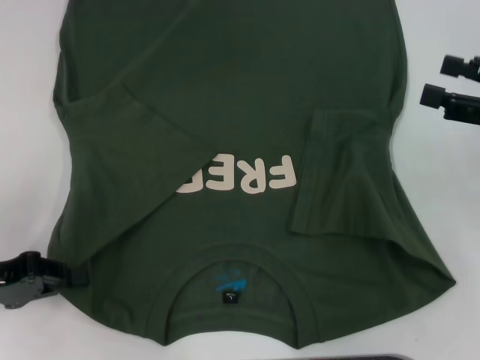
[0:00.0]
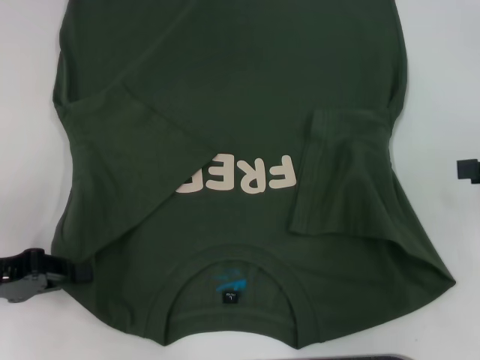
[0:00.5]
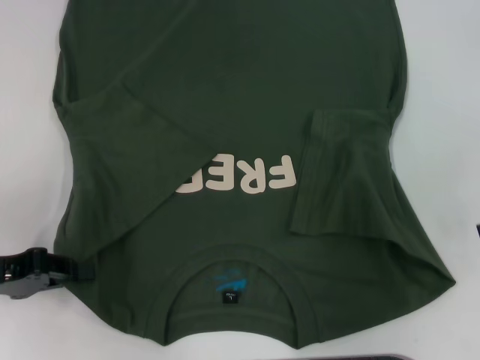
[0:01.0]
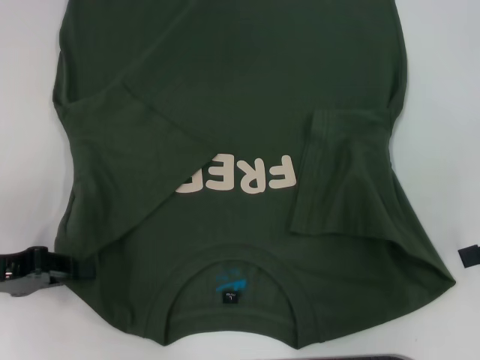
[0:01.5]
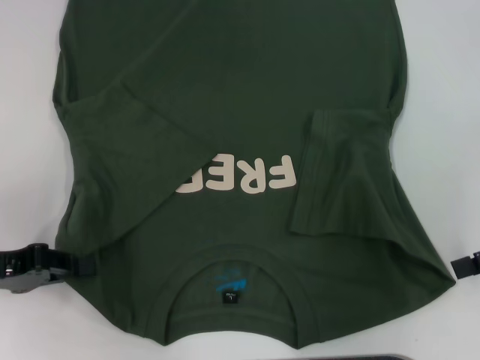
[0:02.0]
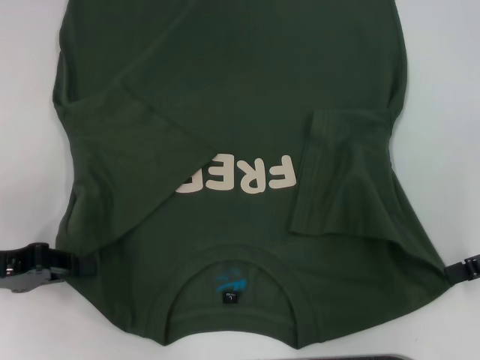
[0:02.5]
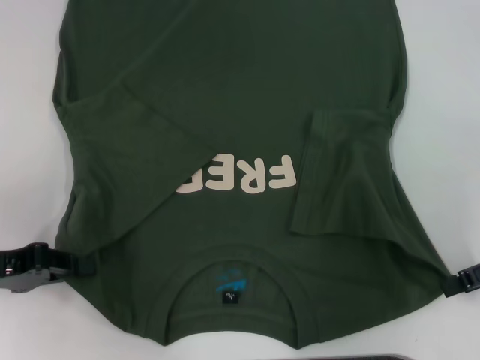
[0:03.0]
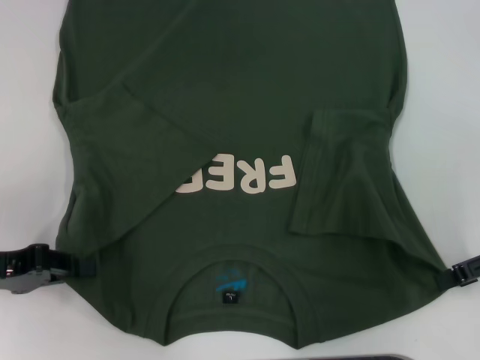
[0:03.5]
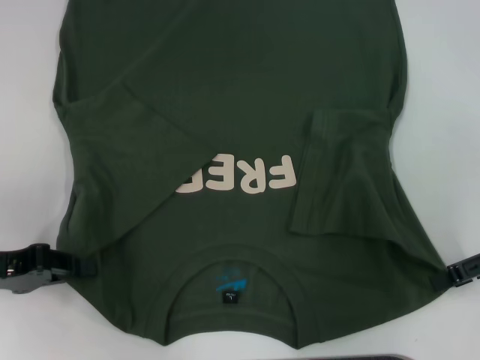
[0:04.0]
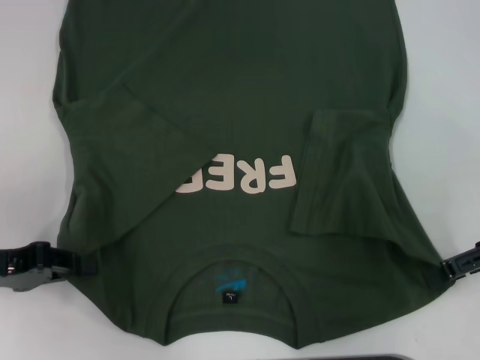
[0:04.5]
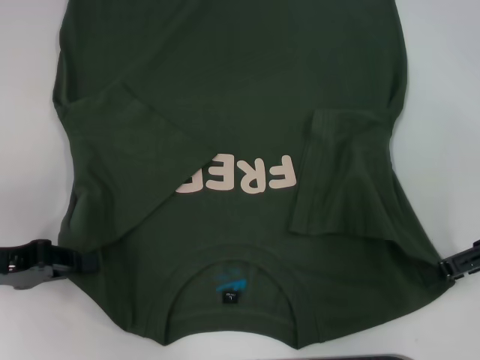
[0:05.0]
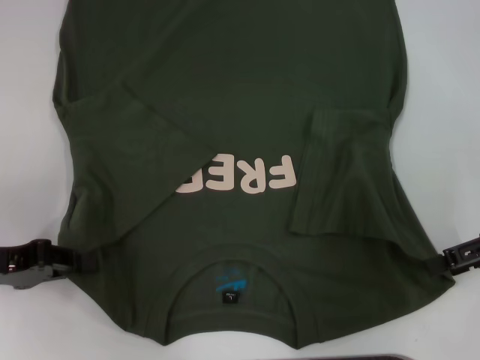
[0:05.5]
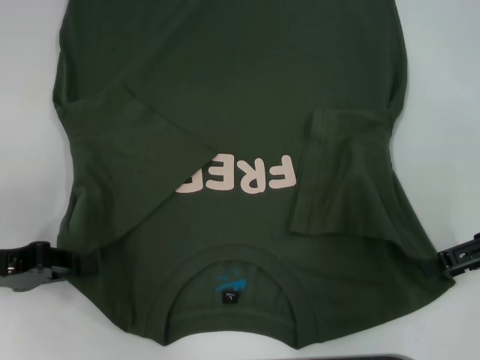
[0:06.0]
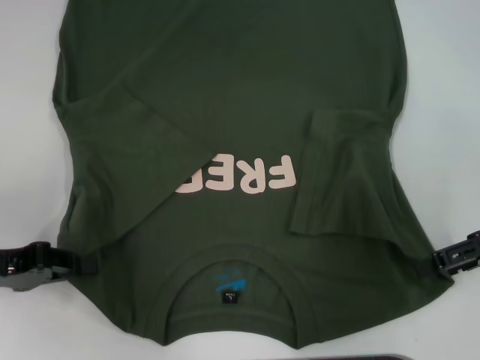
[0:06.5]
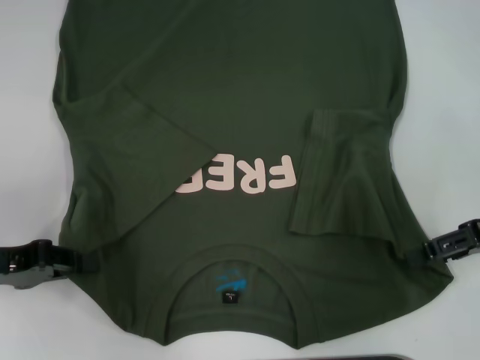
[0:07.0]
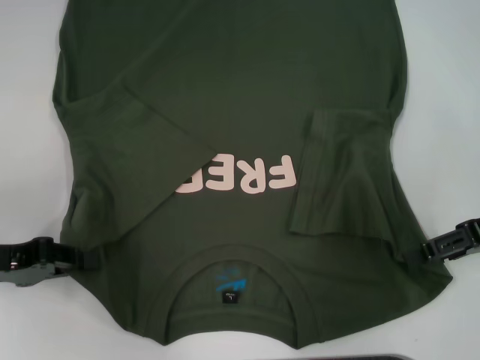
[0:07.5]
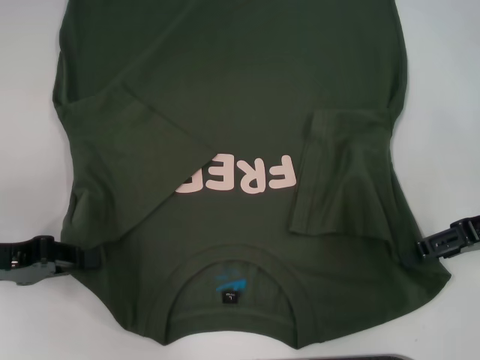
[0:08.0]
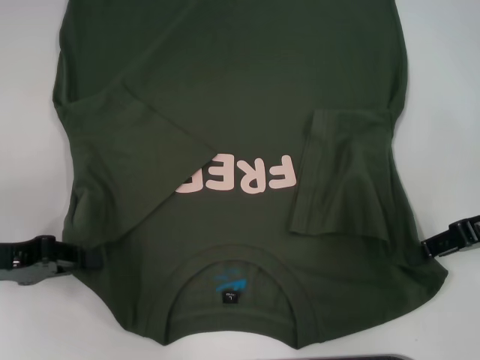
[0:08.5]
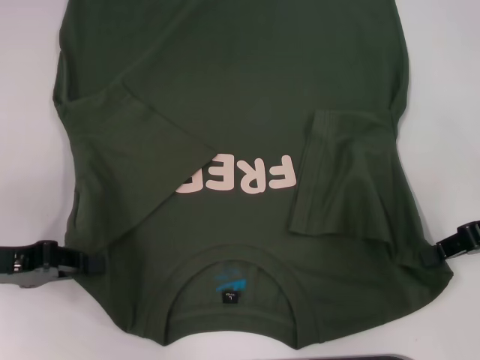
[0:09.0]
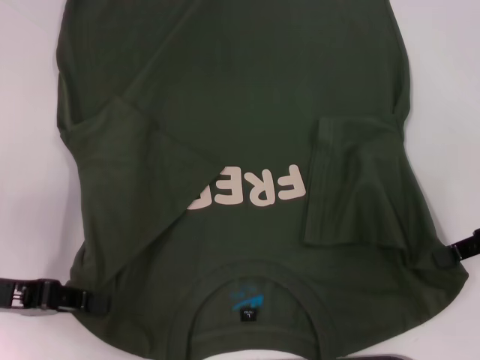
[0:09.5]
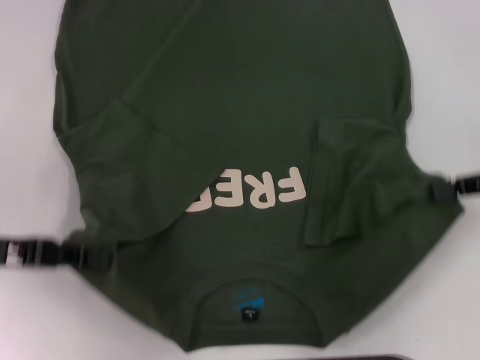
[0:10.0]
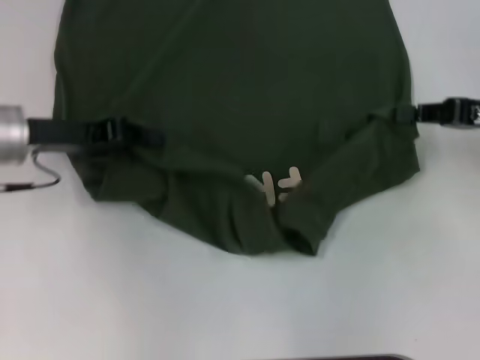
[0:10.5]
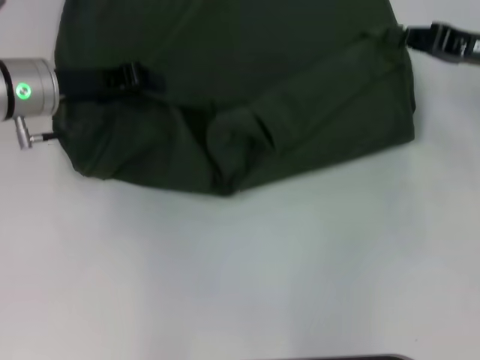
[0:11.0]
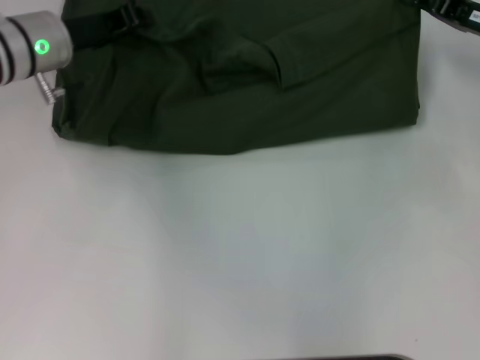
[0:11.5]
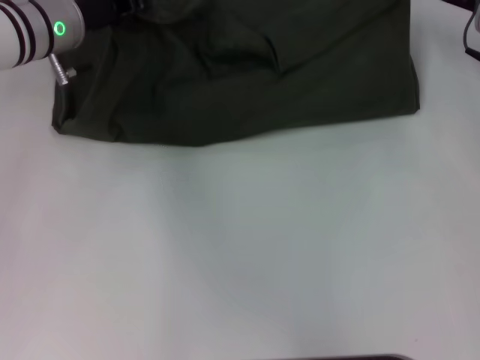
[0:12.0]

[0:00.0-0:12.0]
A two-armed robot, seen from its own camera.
Step, 0:00.5 to 0:09.0: Grab the bottom right corner with your right hand.
0:04.0 to 0:06.0: Both grippers stay about where they are.
0:06.0 to 0:08.0: The grippers move only a little.
0:08.0 to 0:10.0: The right gripper closes up.
0:10.0 to 0:12.0: The left gripper shifts about 20 cm forward and to the right, while the right gripper goes roughly 15 cm forward and to the left.

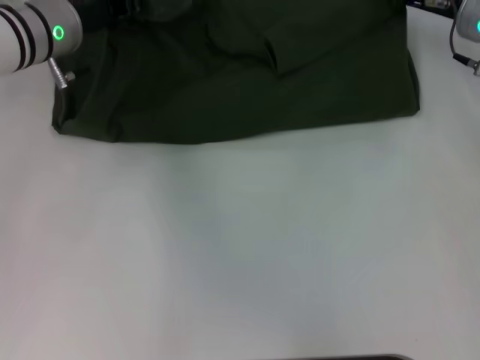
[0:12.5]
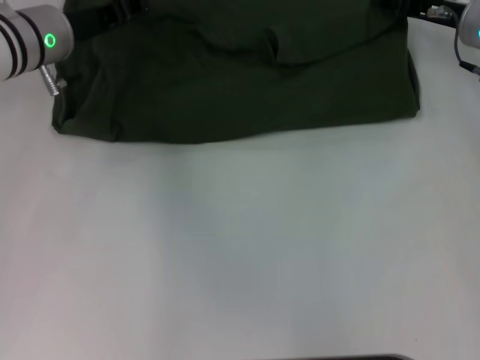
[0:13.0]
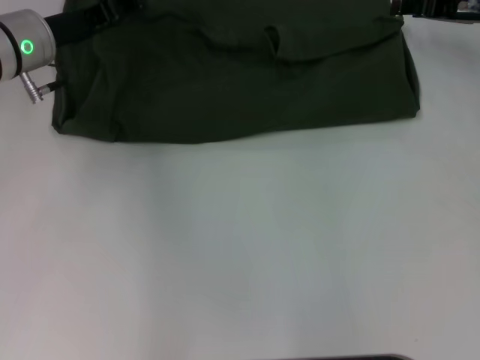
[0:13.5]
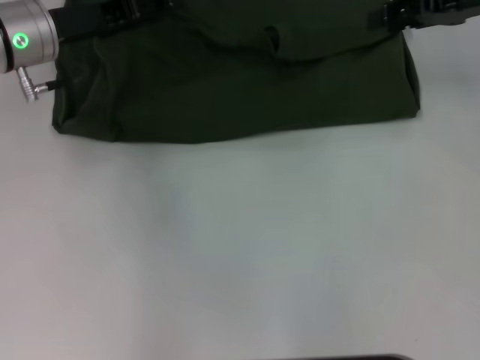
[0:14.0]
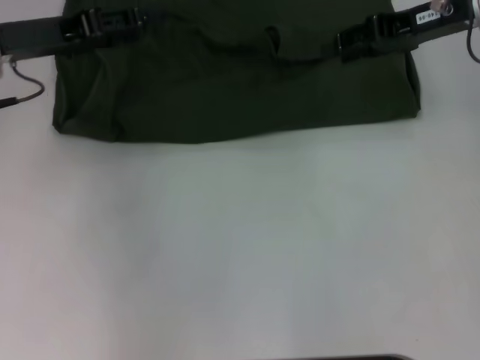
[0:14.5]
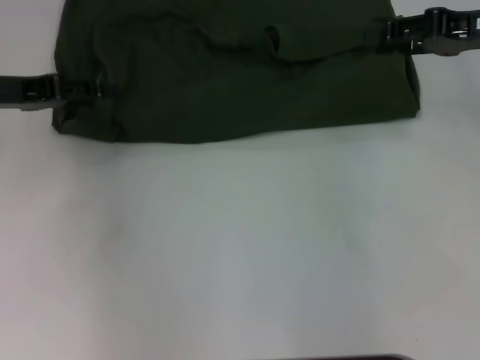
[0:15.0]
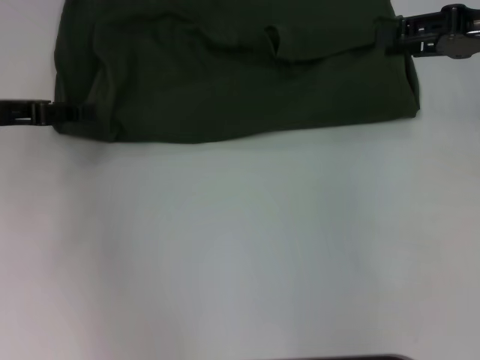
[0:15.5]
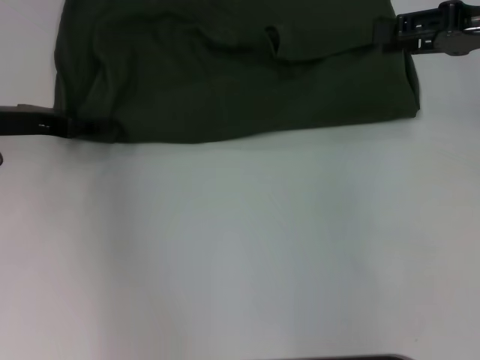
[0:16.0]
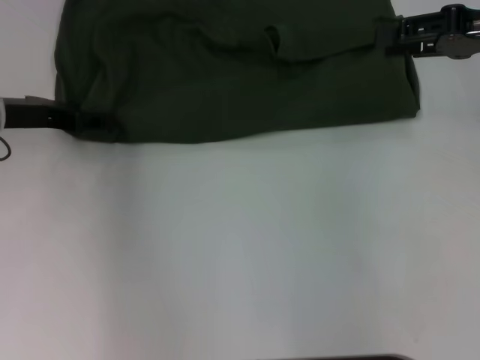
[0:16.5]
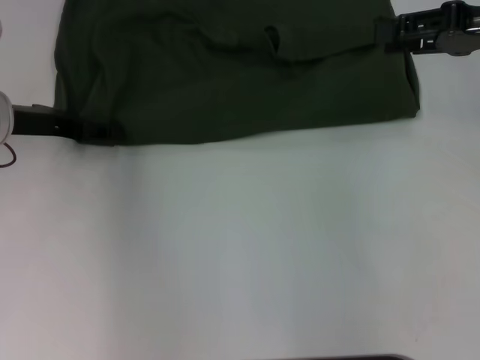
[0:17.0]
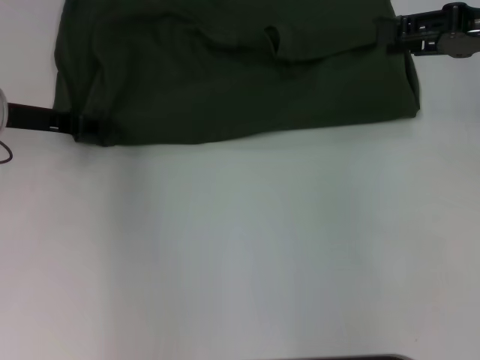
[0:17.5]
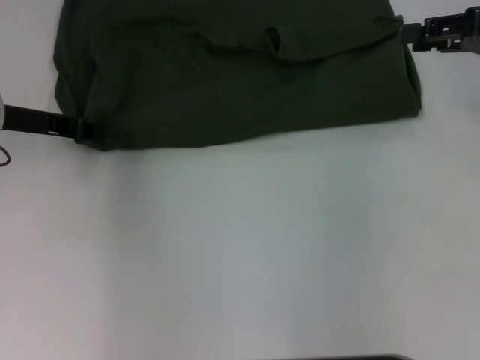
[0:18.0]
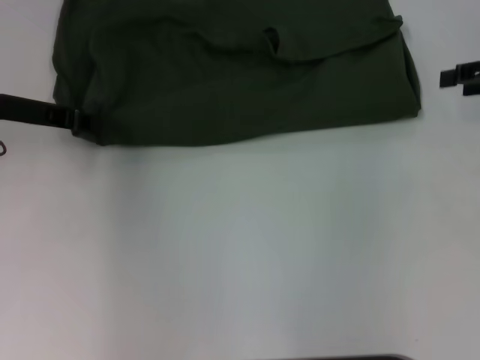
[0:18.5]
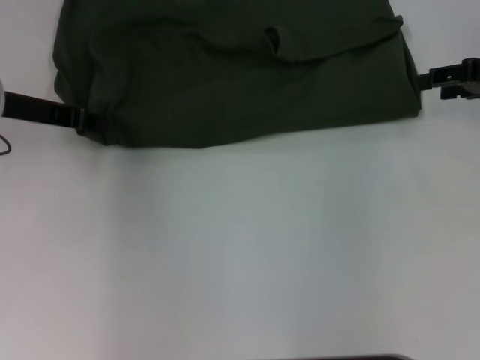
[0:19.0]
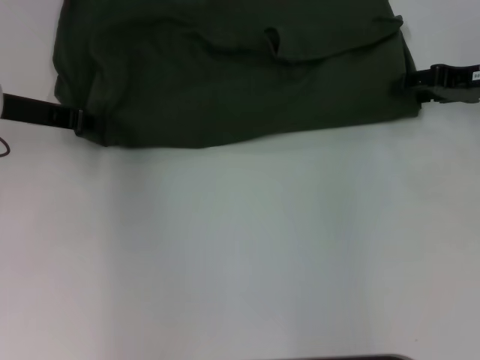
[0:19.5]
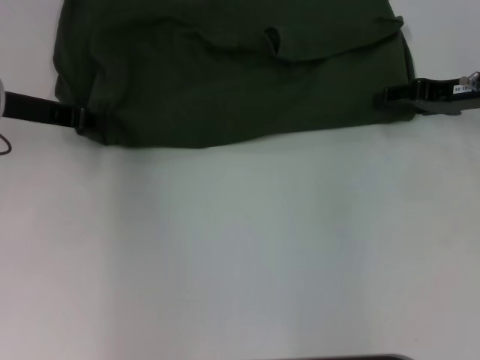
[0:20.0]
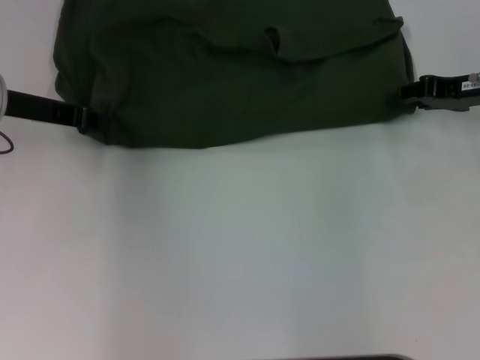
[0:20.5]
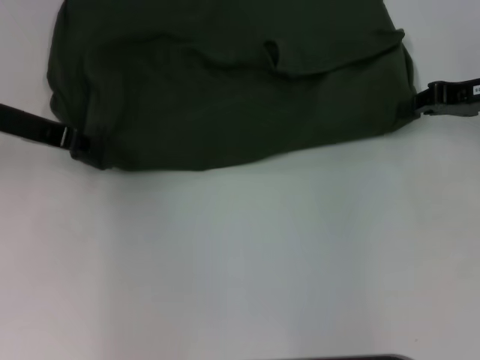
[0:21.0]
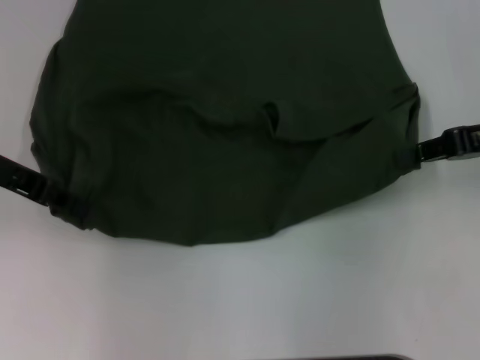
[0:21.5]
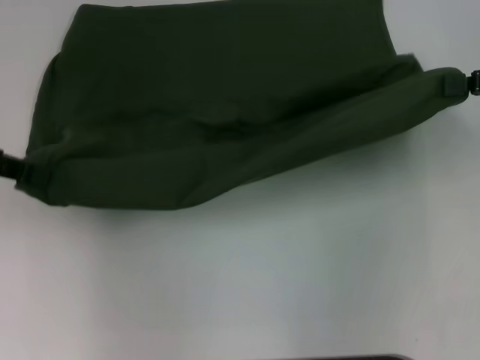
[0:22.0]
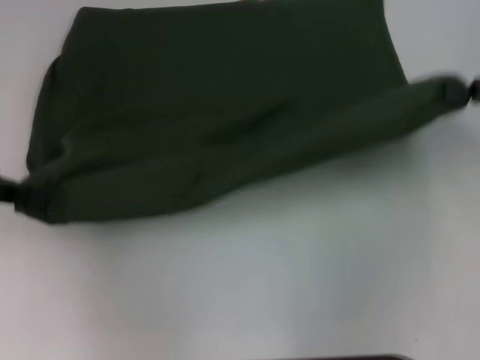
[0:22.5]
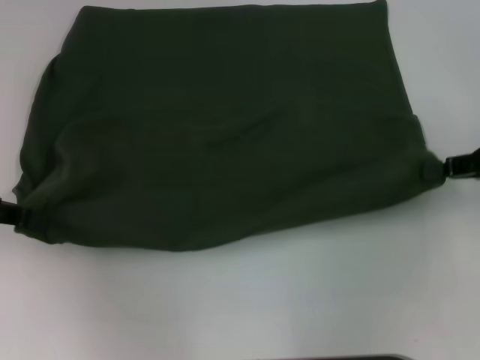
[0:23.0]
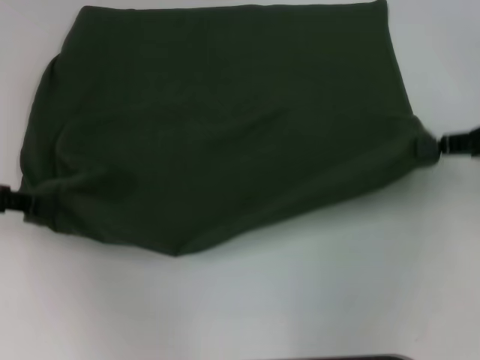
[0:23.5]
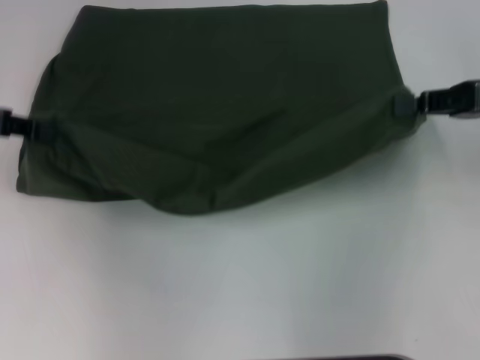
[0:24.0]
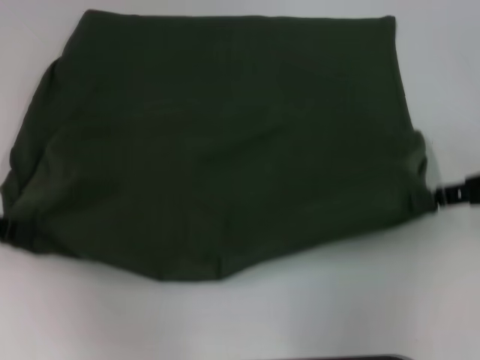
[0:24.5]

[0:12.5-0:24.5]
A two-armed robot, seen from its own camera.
Step, 0:13.5 to 0:22.5: Pull the clothes with your left hand.
Step, 0:13.5 to 0:22.5: Pull the clothes with your right hand.
0:12.5 to 0:14.5: The right gripper shifts roughly 10 cm upward, and opens its fingers. Meanwhile the left gripper goes approximately 10 cm backward and to the left, and opens its fingers.
0:14.5 to 0:16.5: The right gripper heads to the right, covering about 5 cm, while the left gripper moves downward, roughly 5 cm.
0:16.5 to 0:18.5: The right gripper is displaced to the right by approximately 5 cm, while the left gripper closes its fingers.
0:18.5 to 0:20.5: The right gripper shifts roughly 5 cm to the left.
0:20.5 to 0:22.5: The left gripper travels backward and to the left by about 10 cm; the right gripper shifts some 10 cm backward and upward, and closes its fingers.
0:22.5 to 0:24.5: The right gripper changes place by approximately 5 cm.

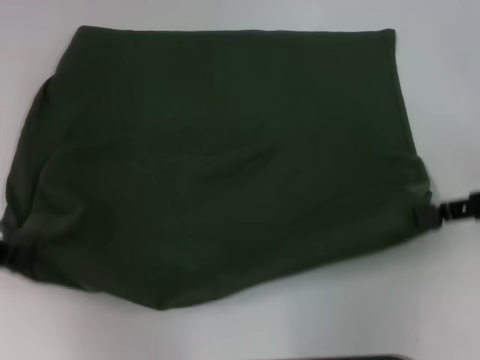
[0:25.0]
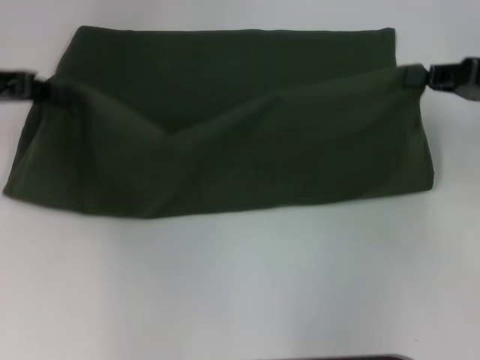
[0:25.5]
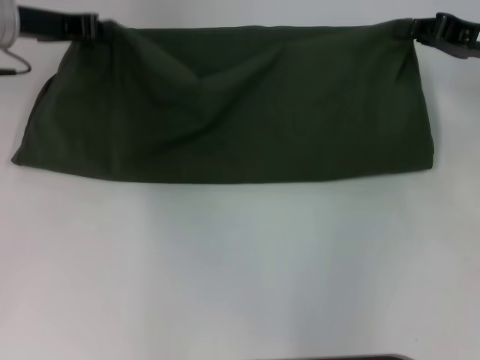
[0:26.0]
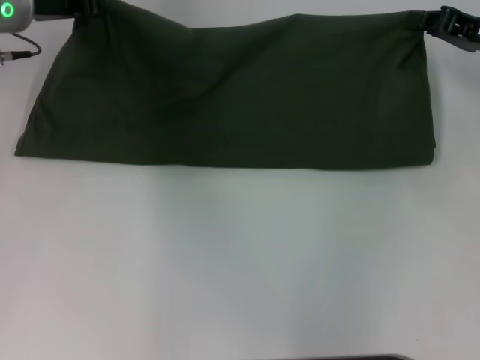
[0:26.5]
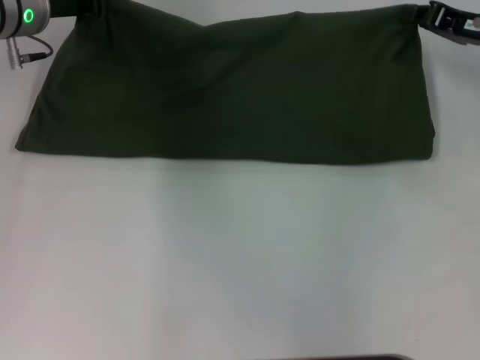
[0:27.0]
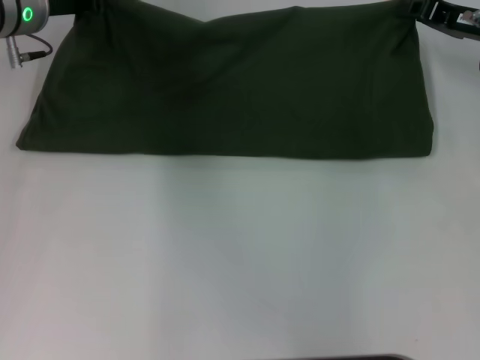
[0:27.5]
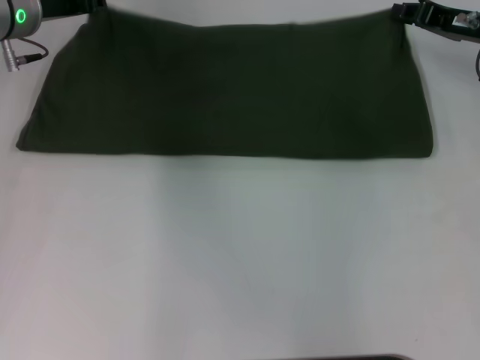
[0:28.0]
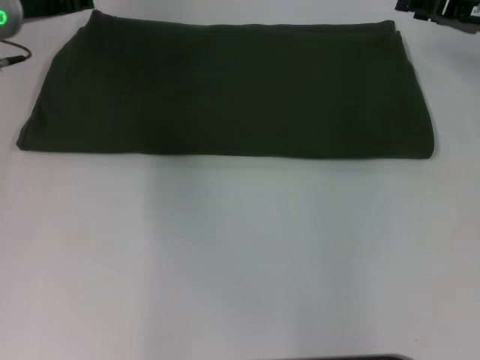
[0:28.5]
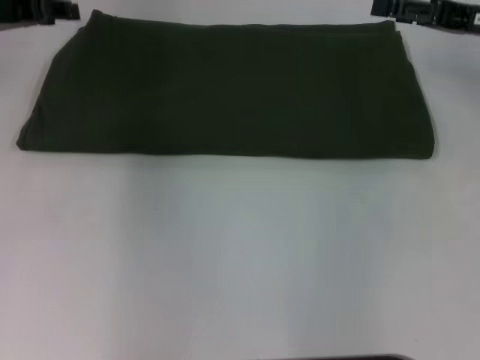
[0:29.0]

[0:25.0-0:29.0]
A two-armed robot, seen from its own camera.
Step, 0:25.0 to 0:28.0: Fold the clothes with your right hand.
0:25.0 to 0:27.0: The right gripper heads forward, covering some 15 cm; the left gripper travels forward and to the right by approximately 20 cm.
0:27.0 to 0:29.0: The right gripper opens its fingers; the left gripper is displaced to the left by some 5 cm, and opens.
